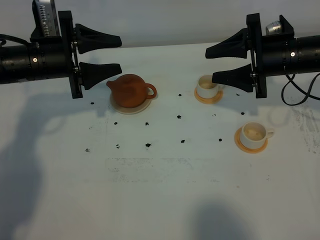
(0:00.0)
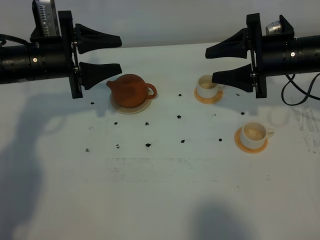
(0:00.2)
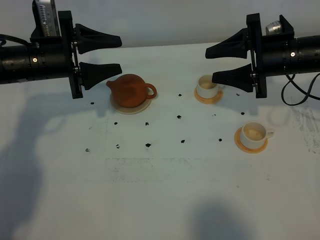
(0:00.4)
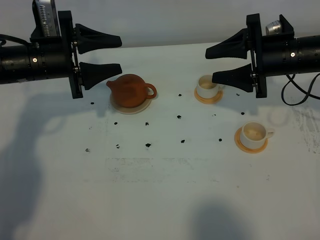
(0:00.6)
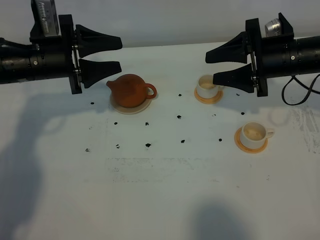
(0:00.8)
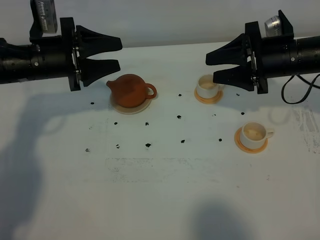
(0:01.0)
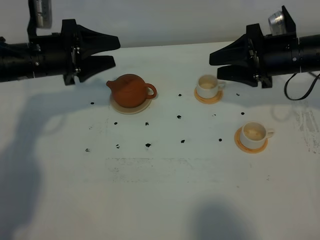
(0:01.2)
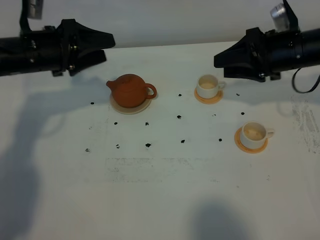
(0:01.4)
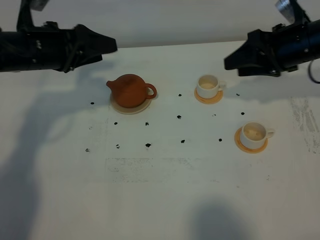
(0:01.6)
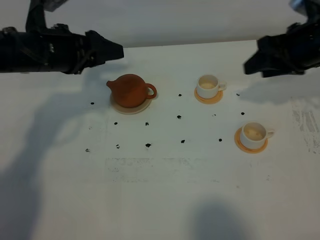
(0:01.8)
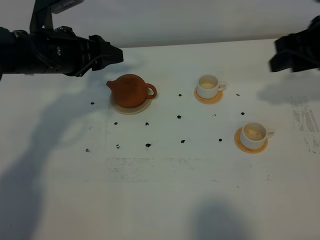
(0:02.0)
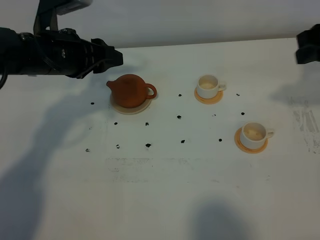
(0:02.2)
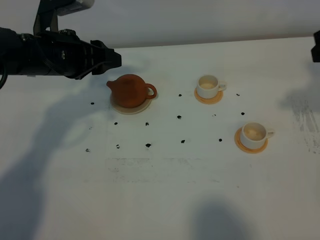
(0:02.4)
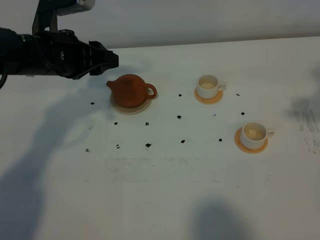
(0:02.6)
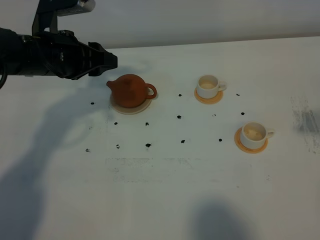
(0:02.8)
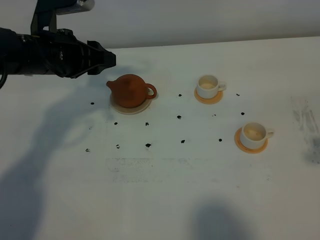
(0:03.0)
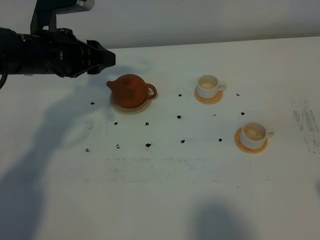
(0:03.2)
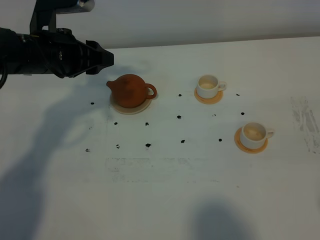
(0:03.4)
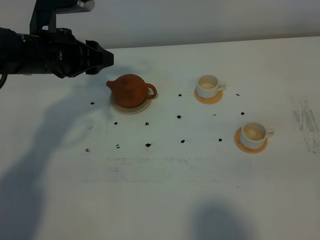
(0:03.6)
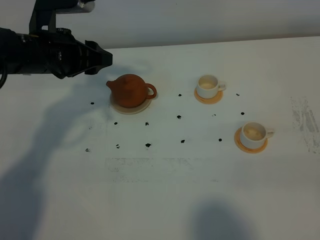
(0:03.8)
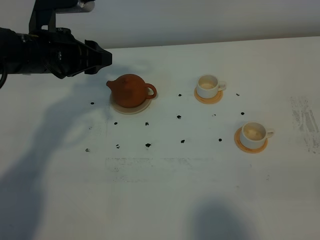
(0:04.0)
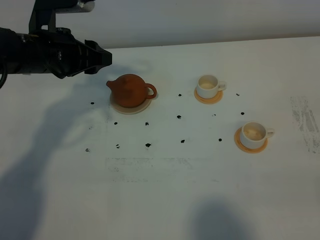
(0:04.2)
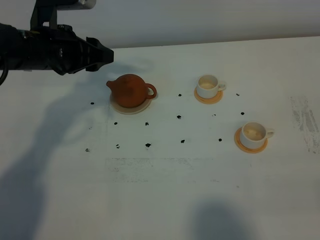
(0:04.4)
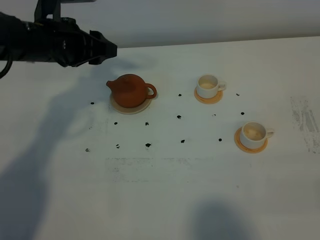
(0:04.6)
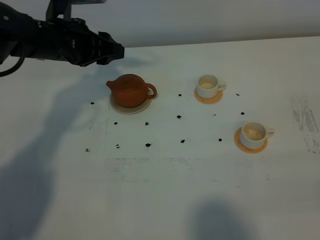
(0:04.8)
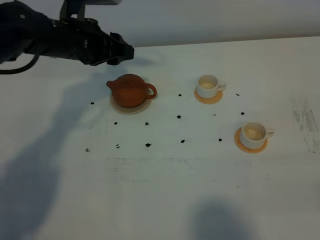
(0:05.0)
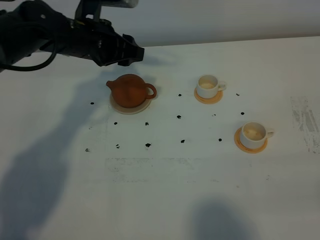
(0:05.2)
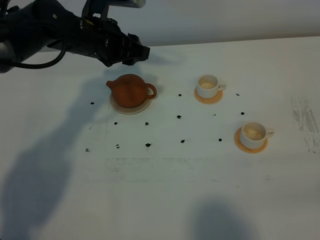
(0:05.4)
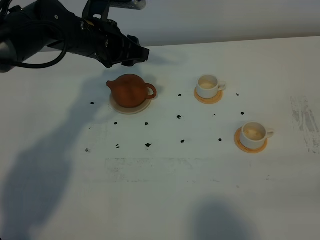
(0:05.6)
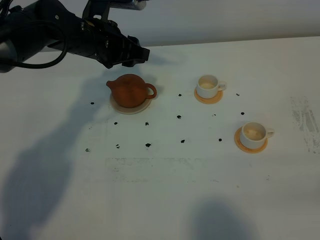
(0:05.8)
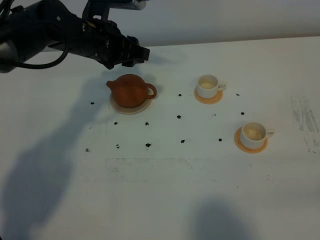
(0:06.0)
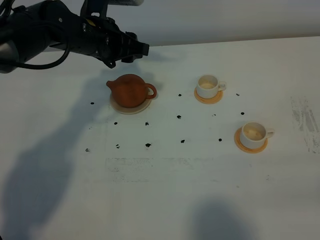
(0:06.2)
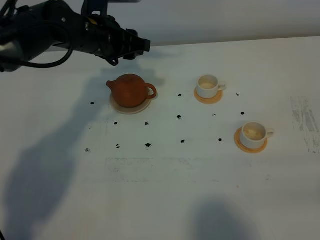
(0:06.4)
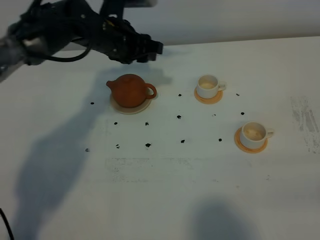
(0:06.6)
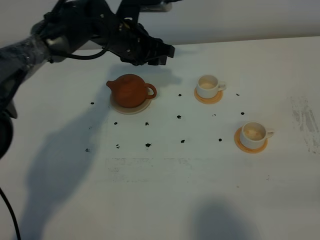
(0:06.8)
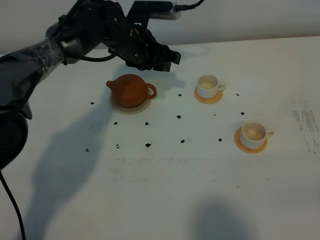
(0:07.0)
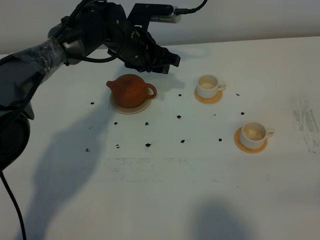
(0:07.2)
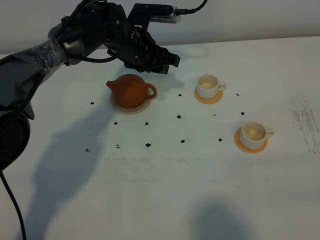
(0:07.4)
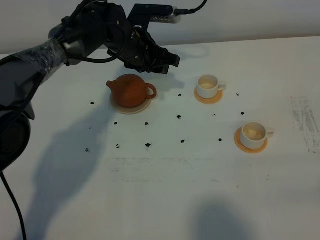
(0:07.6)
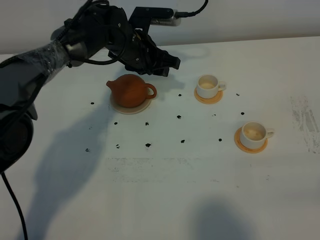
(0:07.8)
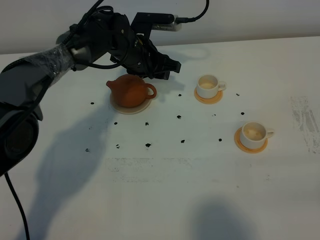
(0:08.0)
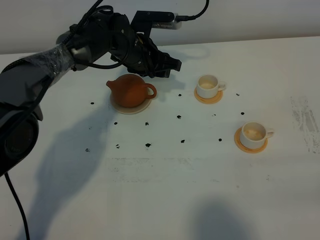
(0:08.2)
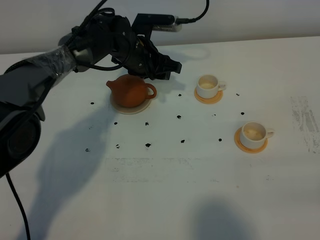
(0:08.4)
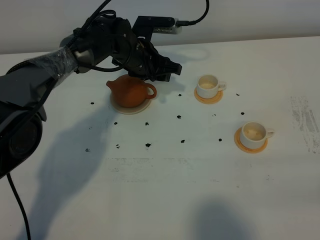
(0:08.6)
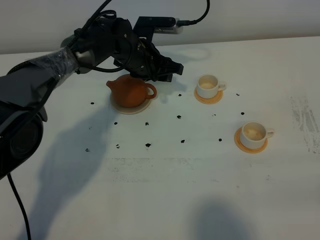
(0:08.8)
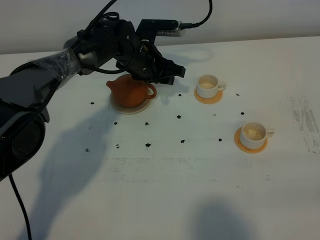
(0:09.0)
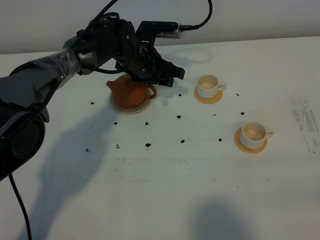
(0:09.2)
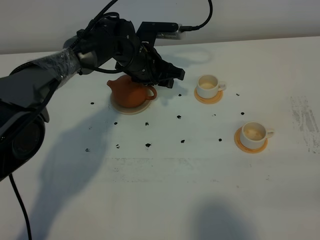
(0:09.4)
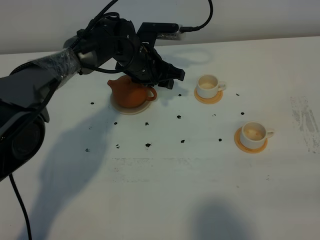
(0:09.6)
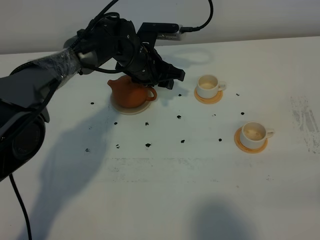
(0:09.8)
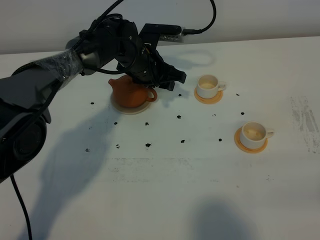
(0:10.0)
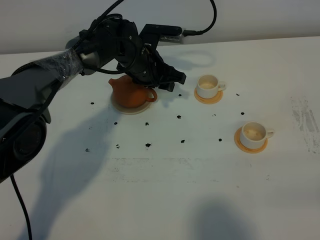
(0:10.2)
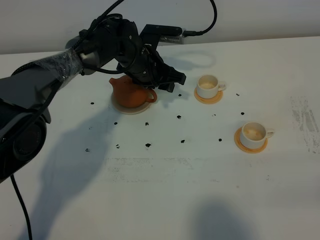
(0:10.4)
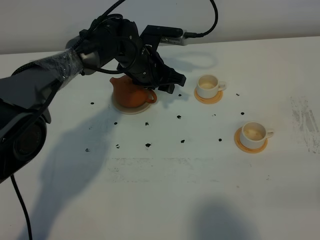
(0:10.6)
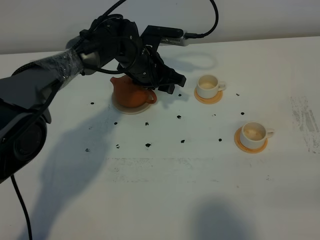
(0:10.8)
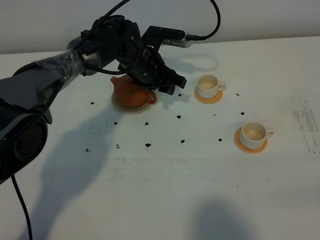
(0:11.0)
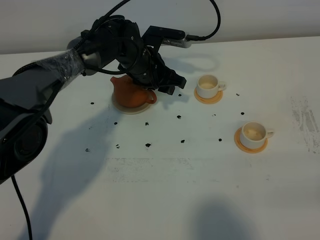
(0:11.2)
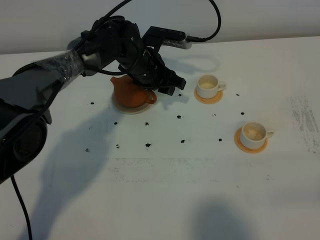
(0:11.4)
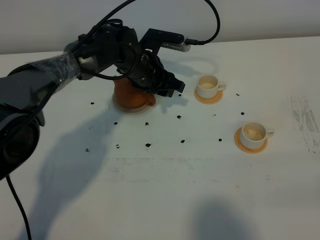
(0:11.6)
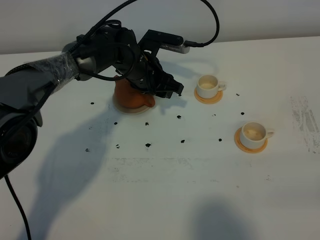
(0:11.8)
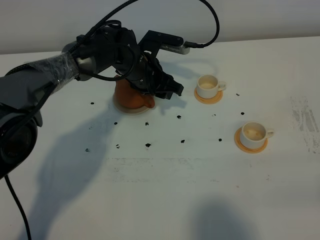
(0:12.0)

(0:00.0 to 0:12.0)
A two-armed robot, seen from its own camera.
Task of the whole recording: grasp the brown teapot and pour the tea into the two white teacups one by one, put the brown teapot back in its original place.
0:01.6 - 0:03.0: The right gripper shifts approximately 25 cm backward and upward.
0:04.4 - 0:06.0: The left gripper goes roughly 10 cm to the right and forward.
0:06.0 - 0:07.6: The left gripper moves to the right and downward, roughly 10 cm.
0:07.6 - 0:12.0: The grippers stay close to where they were, moving slightly.

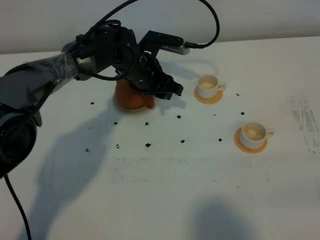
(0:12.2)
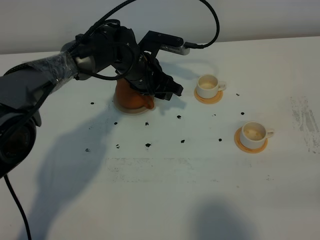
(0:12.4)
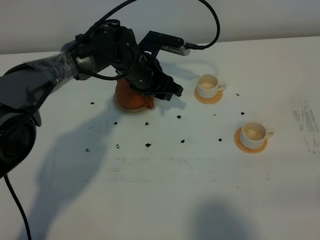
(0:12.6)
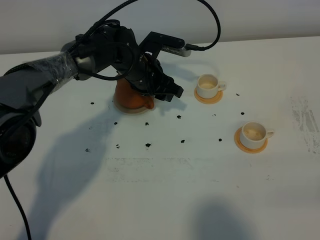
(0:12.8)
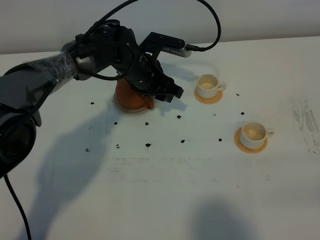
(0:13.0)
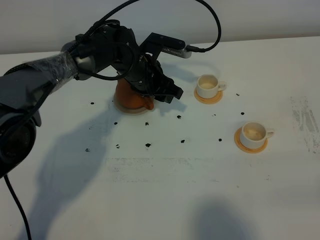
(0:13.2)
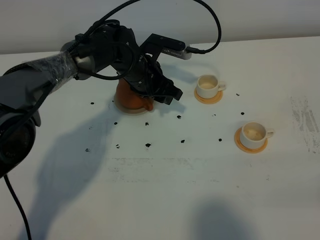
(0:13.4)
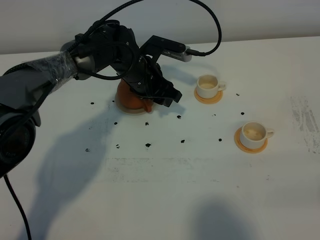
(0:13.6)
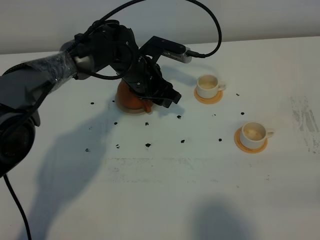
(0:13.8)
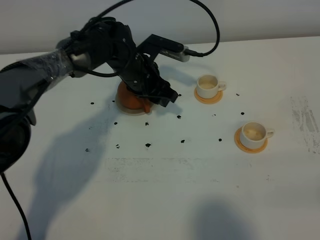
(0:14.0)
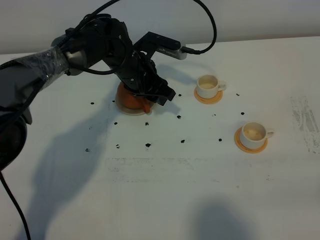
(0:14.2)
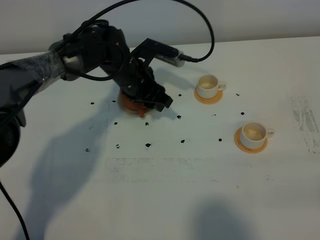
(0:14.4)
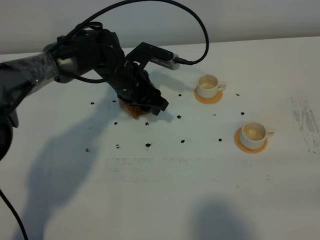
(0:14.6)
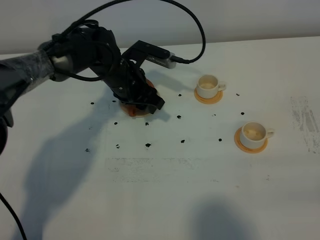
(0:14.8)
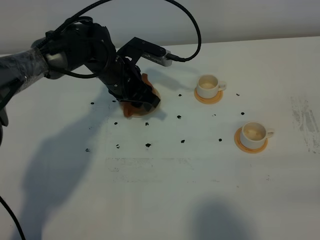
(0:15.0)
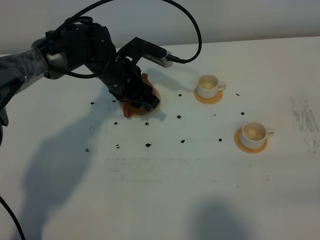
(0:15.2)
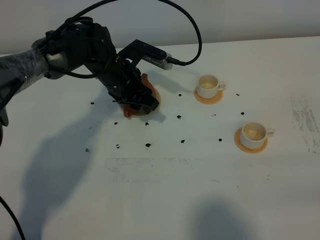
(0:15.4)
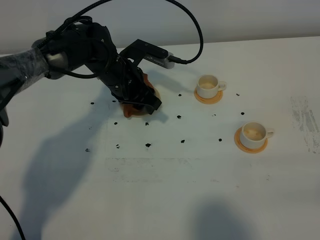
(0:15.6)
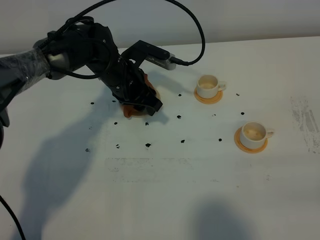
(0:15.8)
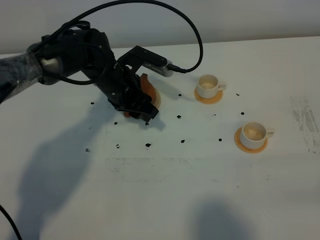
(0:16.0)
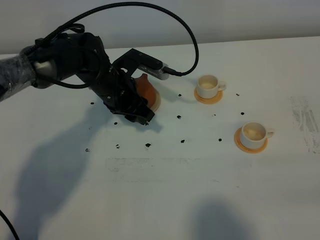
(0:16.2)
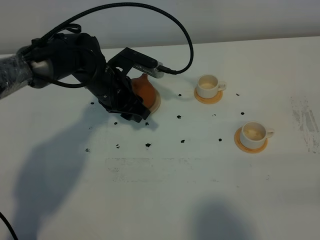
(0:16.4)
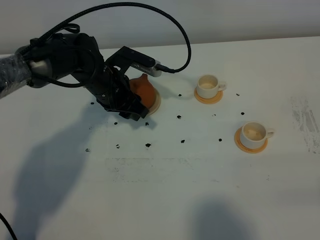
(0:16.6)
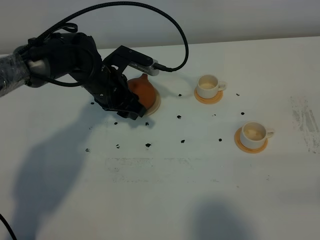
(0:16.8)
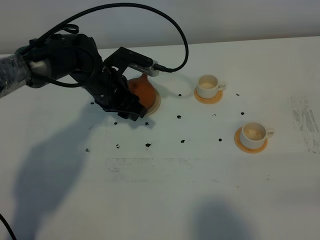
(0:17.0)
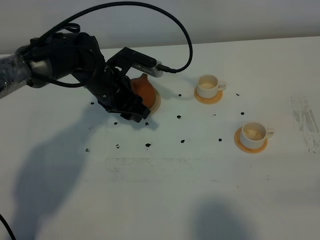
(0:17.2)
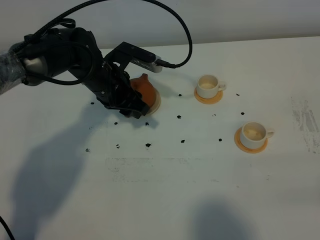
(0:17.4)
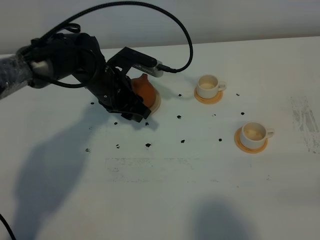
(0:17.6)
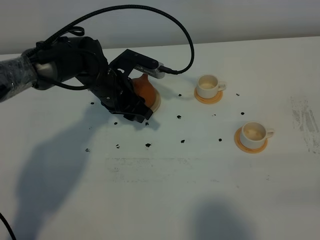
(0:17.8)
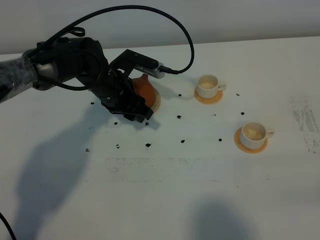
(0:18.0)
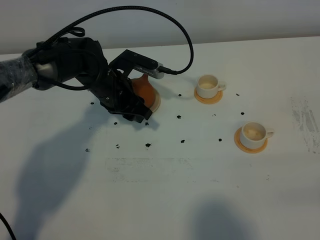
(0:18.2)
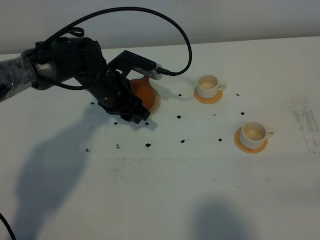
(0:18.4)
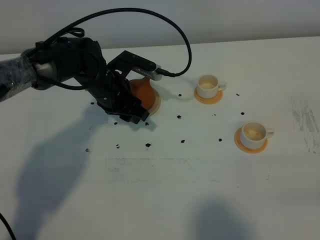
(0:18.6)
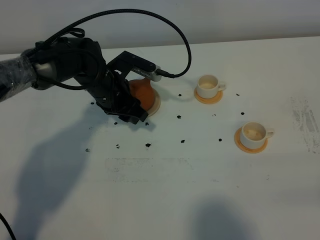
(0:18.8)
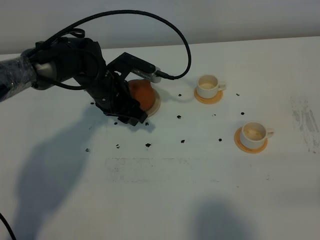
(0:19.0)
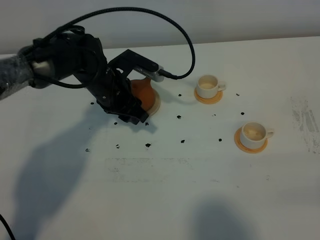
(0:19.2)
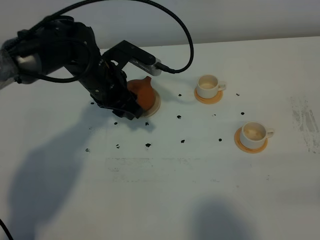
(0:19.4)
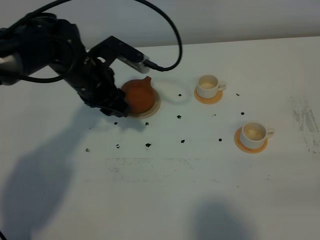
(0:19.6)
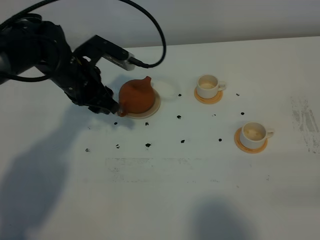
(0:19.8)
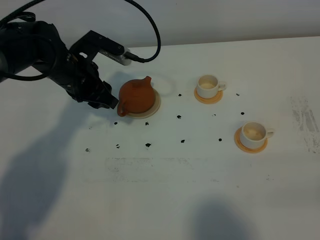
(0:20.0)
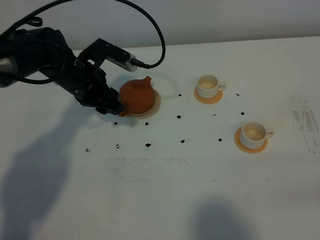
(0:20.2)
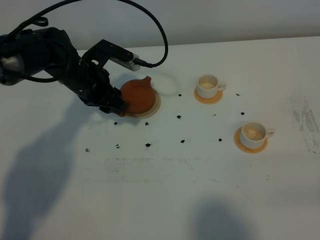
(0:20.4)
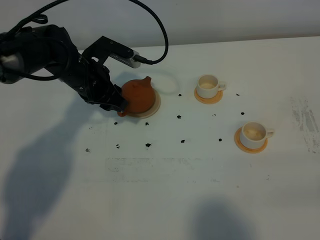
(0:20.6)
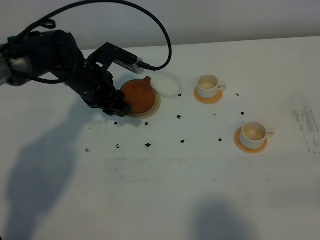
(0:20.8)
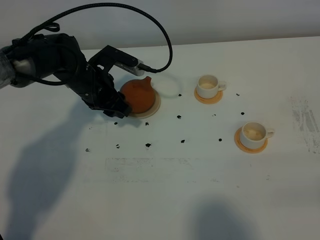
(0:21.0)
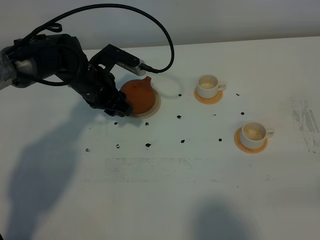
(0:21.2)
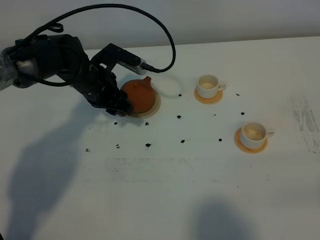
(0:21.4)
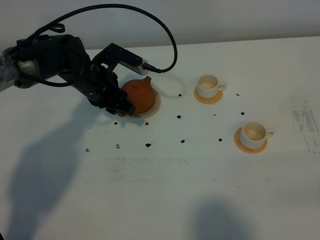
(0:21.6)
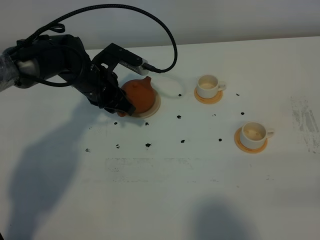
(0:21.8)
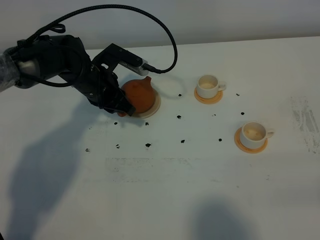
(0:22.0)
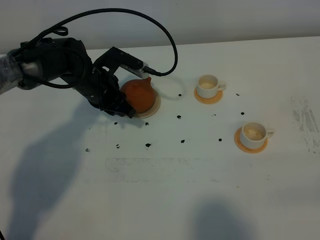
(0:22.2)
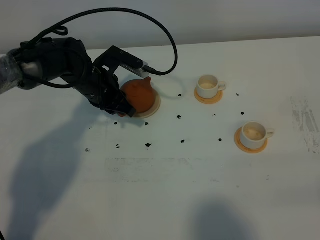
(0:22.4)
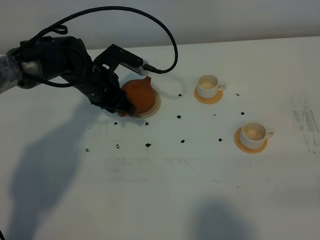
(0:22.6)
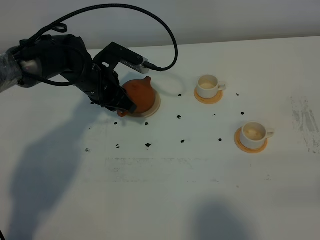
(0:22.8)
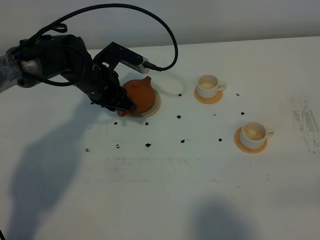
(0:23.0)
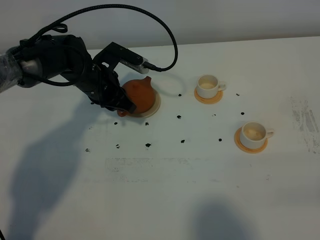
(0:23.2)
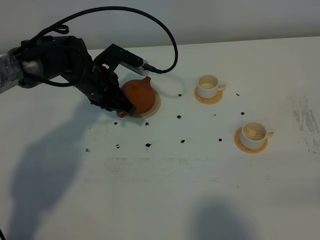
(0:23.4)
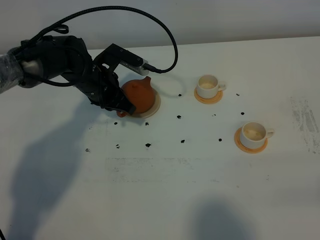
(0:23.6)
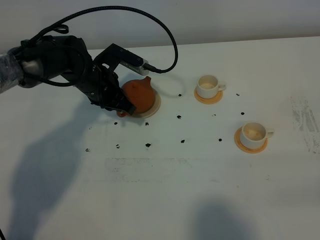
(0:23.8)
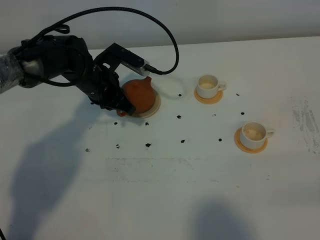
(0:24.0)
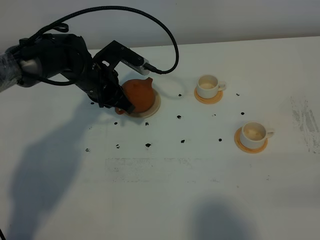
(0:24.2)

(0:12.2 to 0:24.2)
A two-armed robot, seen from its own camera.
Task of the whole recording: grasp the brown teapot and pour the tea into the two white teacups one by one, put the brown teapot back in its original place.
0:12.2 - 0:15.2: The grippers stay close to where they were, moving slightly.
0:15.2 - 0:16.6: The grippers move only a little.
0:16.6 - 0:18.2: The two grippers keep their place.
0:18.2 - 0:19.8: The left gripper moves upward and to the left, approximately 5 cm.
0:19.8 - 0:21.2: The left gripper moves approximately 5 cm.
0:21.2 - 0:22.6: The left gripper closes.
0:22.6 - 0:24.2: The left gripper closes its fingers.
